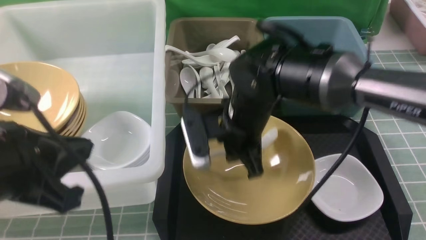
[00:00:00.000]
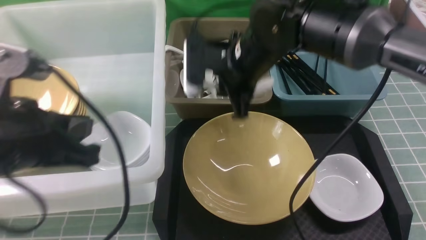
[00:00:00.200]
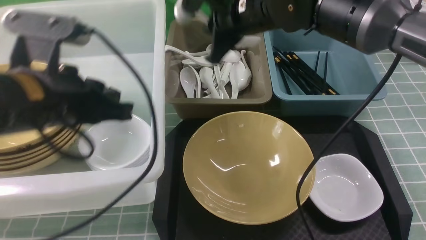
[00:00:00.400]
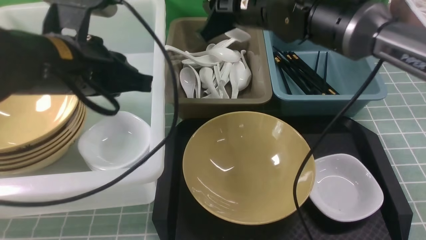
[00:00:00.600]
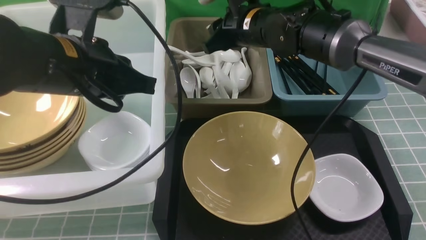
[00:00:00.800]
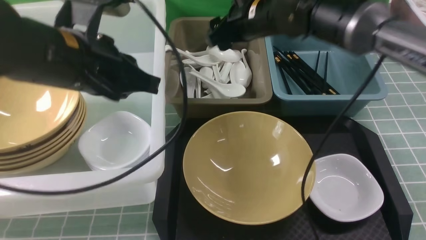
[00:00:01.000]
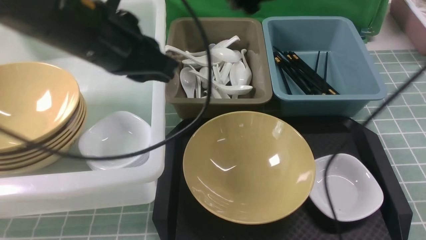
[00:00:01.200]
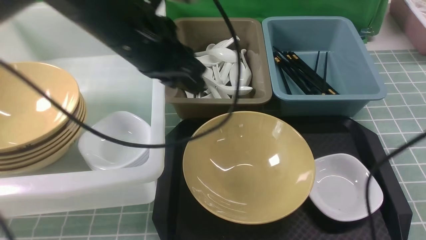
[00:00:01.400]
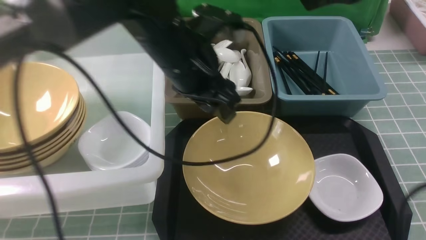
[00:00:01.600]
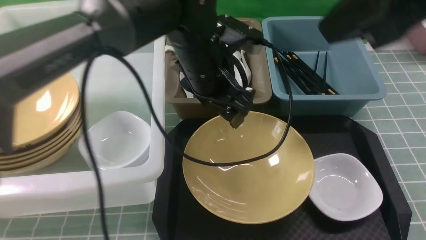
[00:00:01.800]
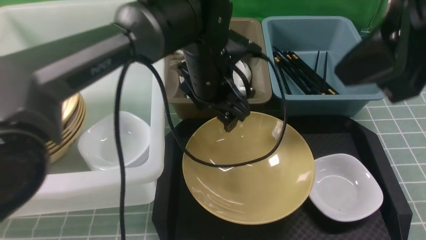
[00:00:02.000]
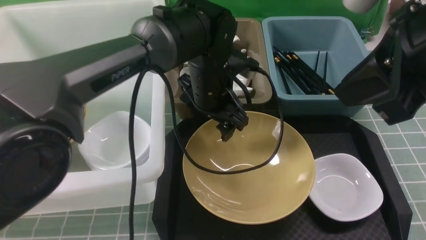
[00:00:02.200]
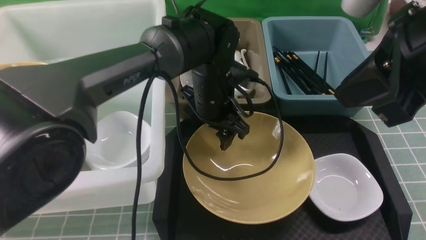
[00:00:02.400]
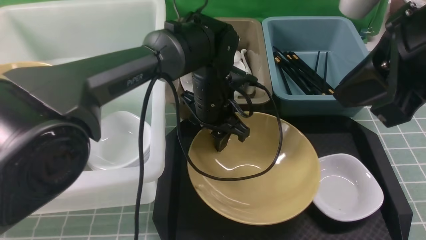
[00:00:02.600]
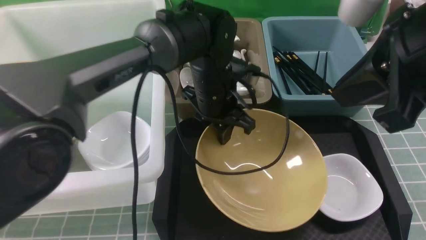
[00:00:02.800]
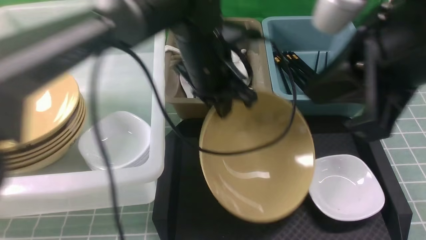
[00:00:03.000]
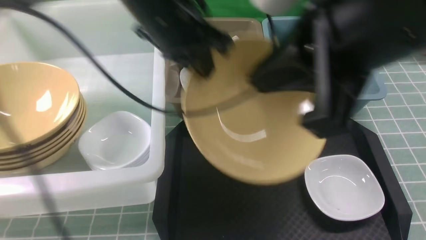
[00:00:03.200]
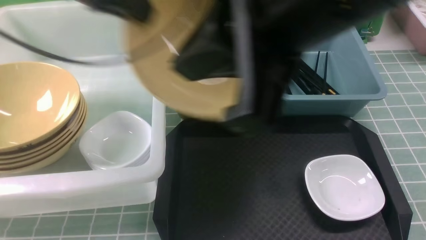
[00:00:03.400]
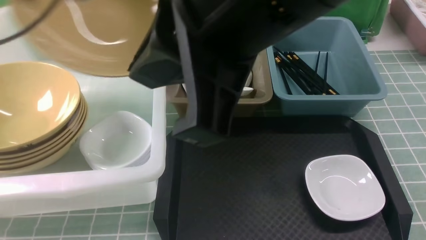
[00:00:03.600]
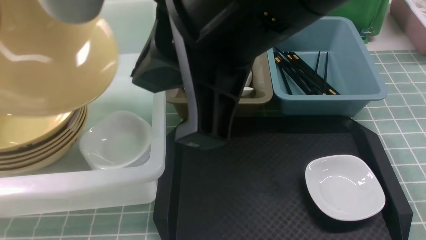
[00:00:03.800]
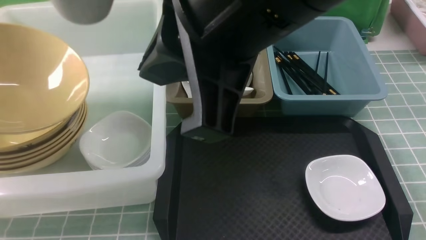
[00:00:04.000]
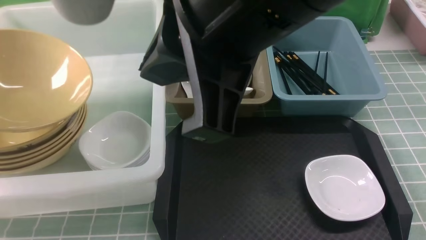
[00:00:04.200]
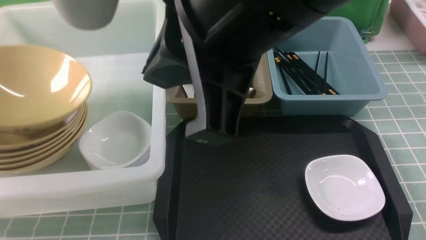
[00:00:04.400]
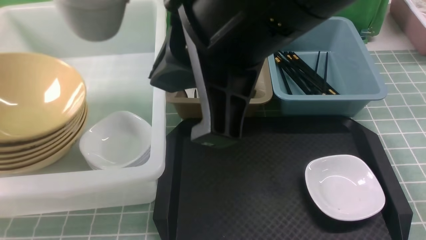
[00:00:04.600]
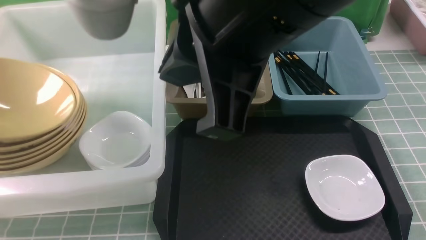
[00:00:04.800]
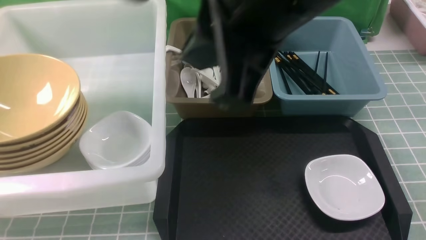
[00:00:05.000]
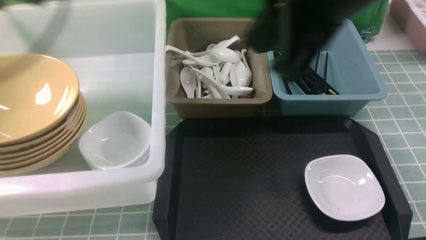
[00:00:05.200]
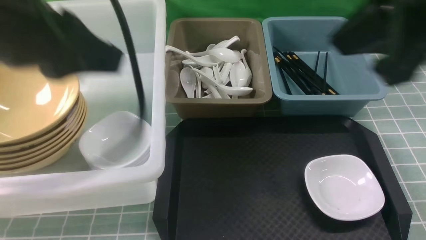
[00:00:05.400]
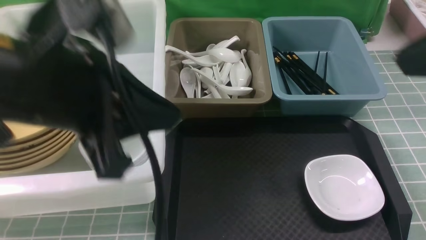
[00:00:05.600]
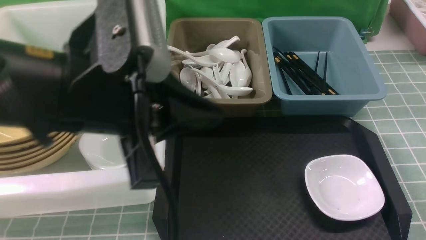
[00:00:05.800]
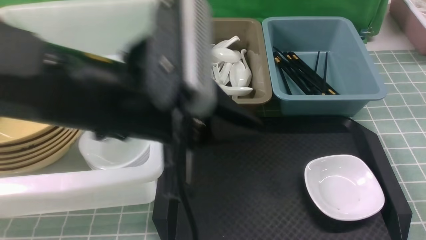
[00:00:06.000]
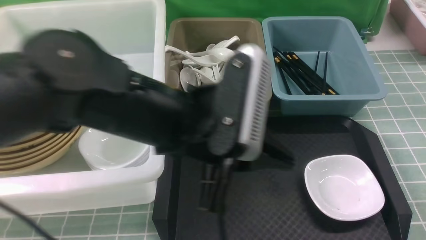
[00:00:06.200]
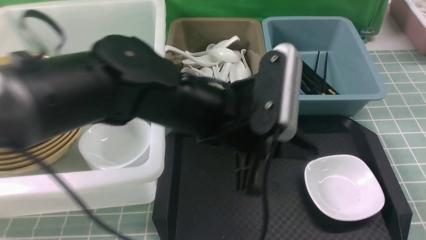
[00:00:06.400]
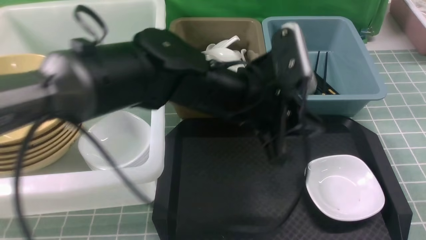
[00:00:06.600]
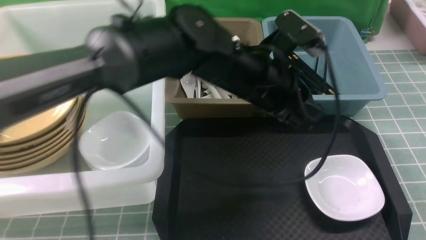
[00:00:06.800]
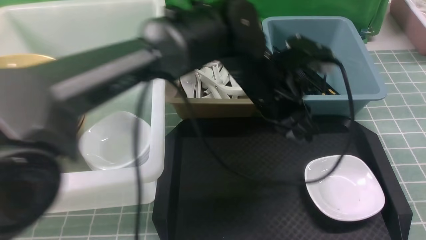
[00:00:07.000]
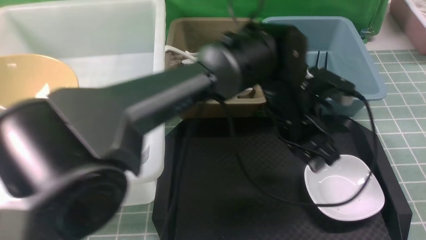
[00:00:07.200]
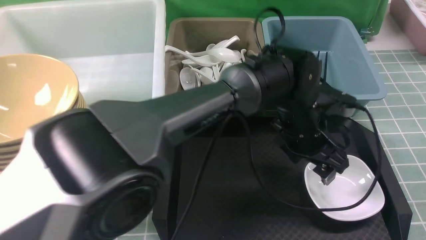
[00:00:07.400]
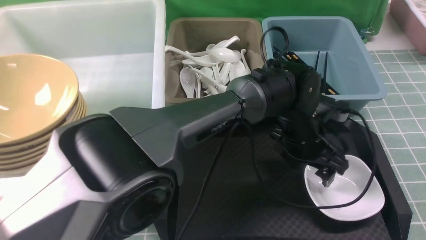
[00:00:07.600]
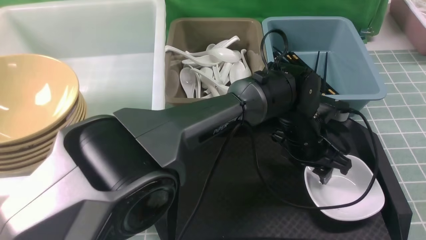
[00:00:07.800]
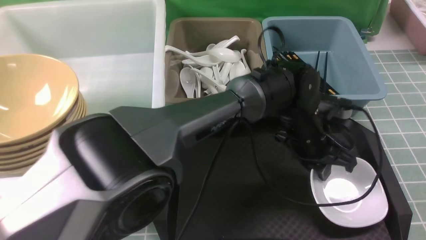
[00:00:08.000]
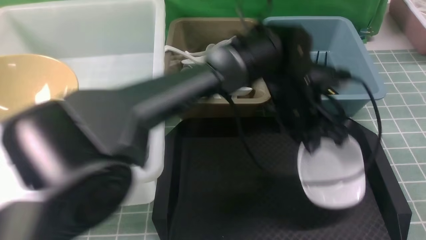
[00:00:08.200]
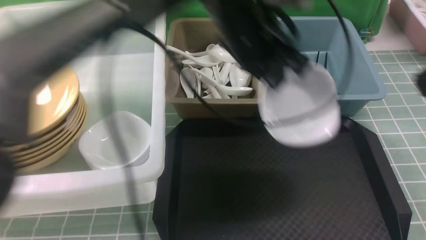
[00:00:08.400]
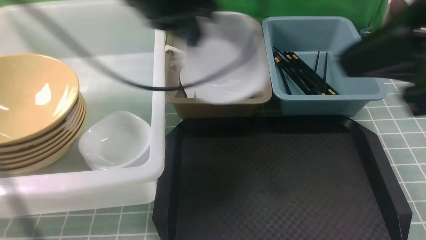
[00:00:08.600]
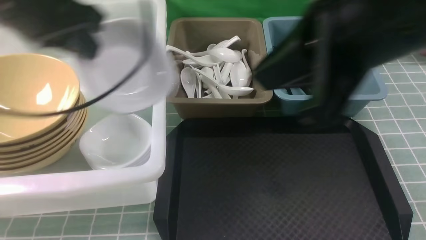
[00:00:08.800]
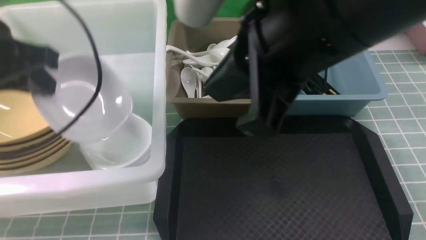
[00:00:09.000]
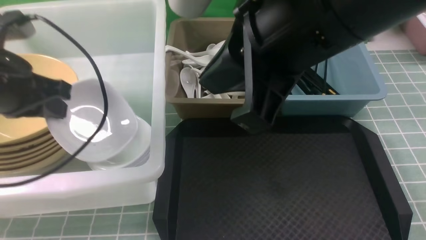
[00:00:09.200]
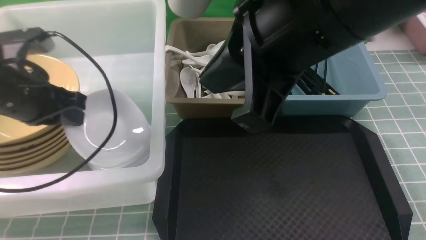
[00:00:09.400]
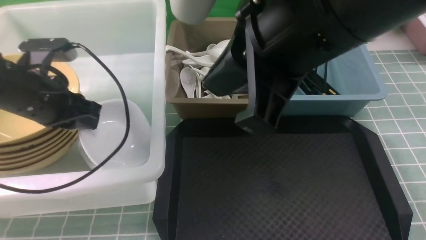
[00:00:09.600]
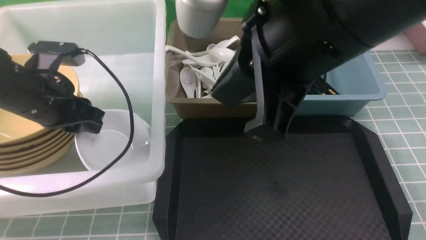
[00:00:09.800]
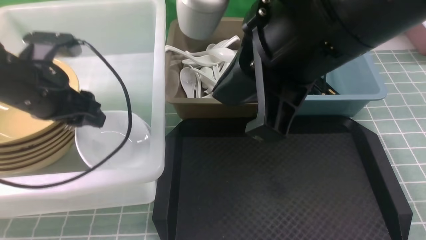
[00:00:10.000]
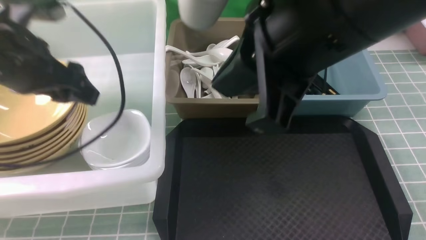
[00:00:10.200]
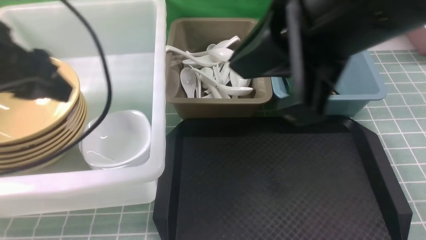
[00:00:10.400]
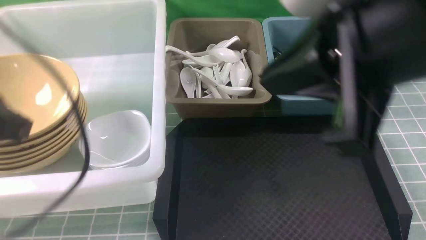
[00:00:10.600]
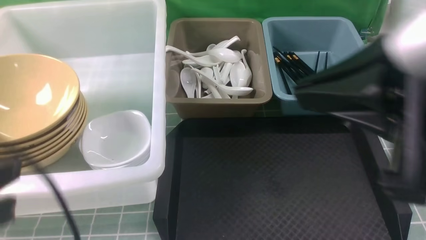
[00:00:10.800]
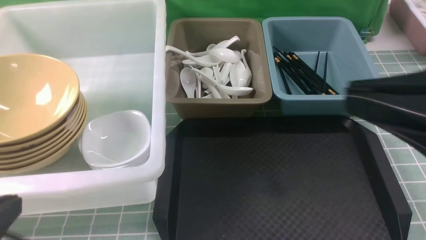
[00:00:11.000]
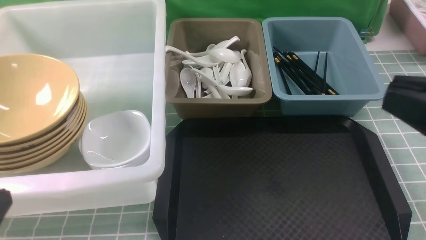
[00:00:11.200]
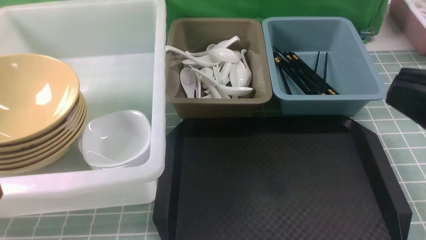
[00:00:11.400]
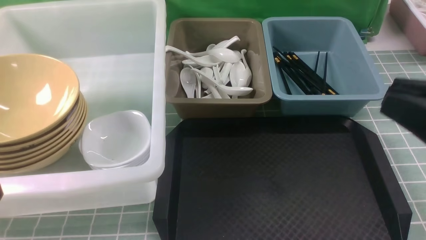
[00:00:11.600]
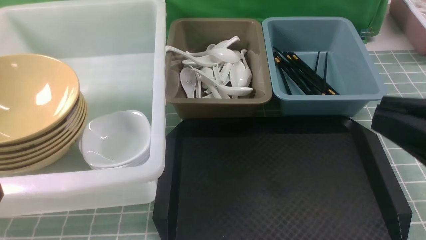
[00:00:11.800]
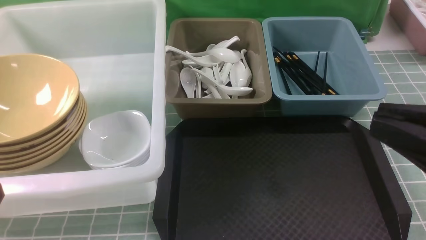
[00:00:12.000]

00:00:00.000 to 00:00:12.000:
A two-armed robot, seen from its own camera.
Task of the whole recording: on blue table put chopsticks spoon bowls plates into blue grey white boxes.
Step, 00:00:00.200 to 00:00:00.800: use the right arm to put the soup spoon into the small storage box in the middle.
Step, 00:00:01.000 to 00:00:02.800: use the left arm to grab the yellow noodle bowl on the left.
Step, 00:00:03.000 to 00:00:04.600: use the left arm to put the noodle bowl into the large storage box on the left.
Step, 00:00:04.800 to 00:00:08.200: use the left arm to grab the plate.
Step, 00:00:08.400 to 00:00:10.200: use the left arm to put the plate into the large storage box on the left.
00:00:00.000 to 00:00:01.600: The left gripper heads forward and to the right, covering approximately 25 cm, and opens. Meanwhile the right gripper goes approximately 25 cm upward and to the right, and opens.
00:00:01.600 to 00:00:03.000: The right gripper moves backward, approximately 5 cm, and closes, while the left gripper goes downward and returns, about 10 cm each way, and closes its fingers.
00:00:03.000 to 00:00:04.400: The left gripper goes approximately 40 cm to the left; the right gripper is displaced to the left by approximately 10 cm.
00:00:04.400 to 00:00:06.000: The right gripper moves to the right, about 20 cm; the left gripper travels to the right by some 35 cm, and opens, then closes again.
00:00:06.000 to 00:00:07.600: The left gripper goes roughly 30 cm to the right, downward and forward, and opens its fingers.
00:00:07.600 to 00:00:09.000: The right gripper travels to the left and forward by some 20 cm; the left gripper goes approximately 40 cm to the left and upward, and closes up.
00:00:09.000 to 00:00:10.400: The left gripper travels backward by approximately 5 cm, moves about 10 cm downward and comes back, and opens its fingers.
00:00:10.400 to 00:00:12.000: The right gripper goes approximately 15 cm to the right, backward and downward. The left gripper heads backward and downward, covering about 20 cm, and closes up.

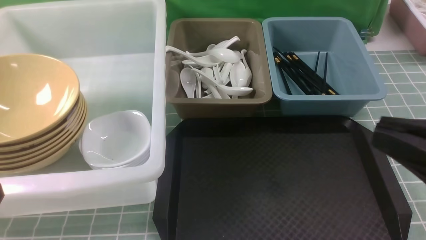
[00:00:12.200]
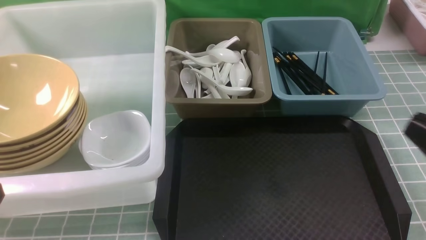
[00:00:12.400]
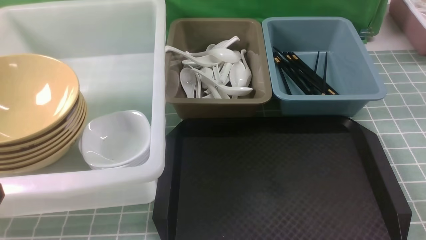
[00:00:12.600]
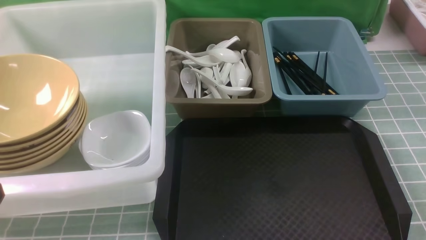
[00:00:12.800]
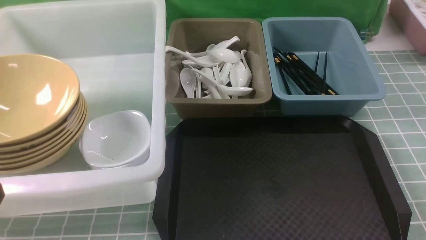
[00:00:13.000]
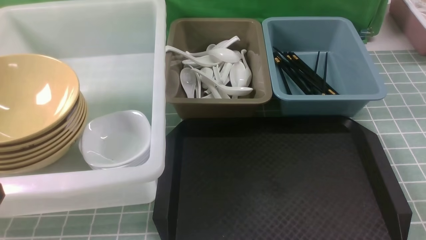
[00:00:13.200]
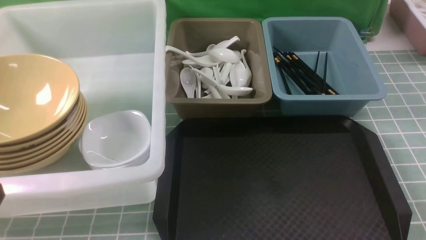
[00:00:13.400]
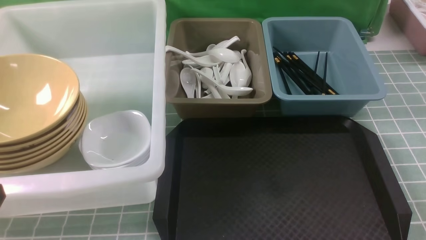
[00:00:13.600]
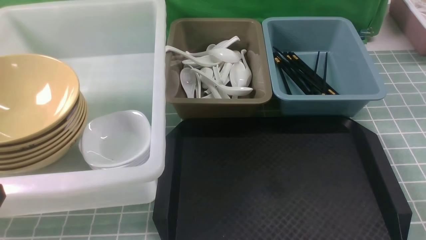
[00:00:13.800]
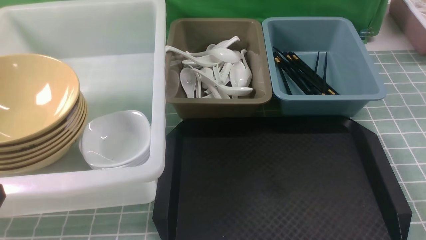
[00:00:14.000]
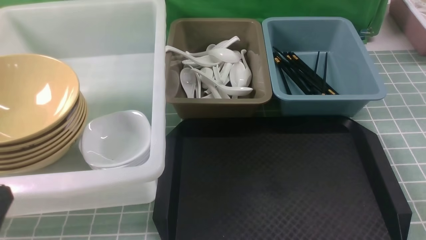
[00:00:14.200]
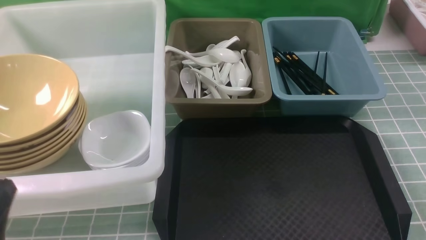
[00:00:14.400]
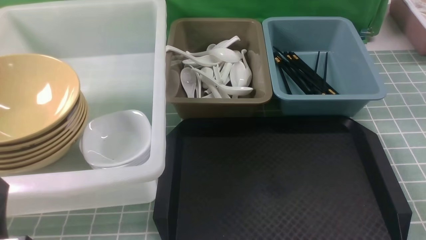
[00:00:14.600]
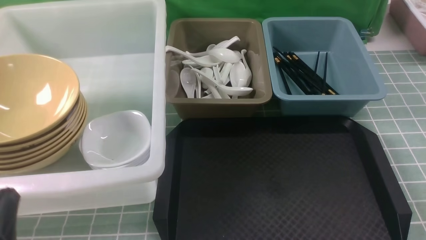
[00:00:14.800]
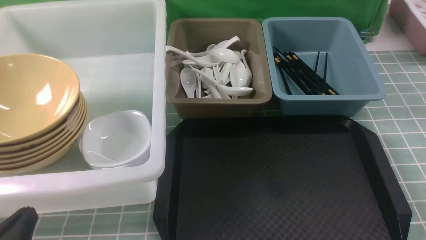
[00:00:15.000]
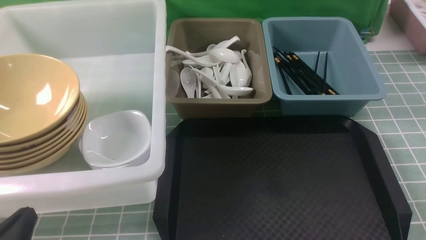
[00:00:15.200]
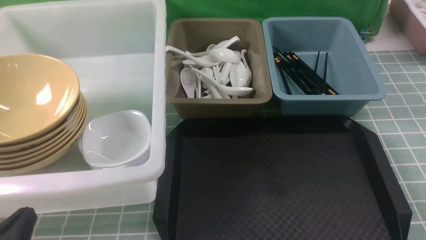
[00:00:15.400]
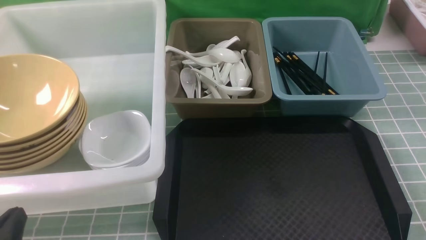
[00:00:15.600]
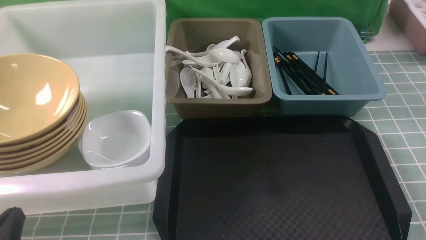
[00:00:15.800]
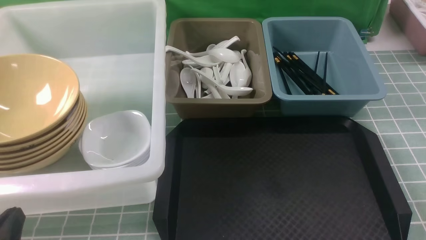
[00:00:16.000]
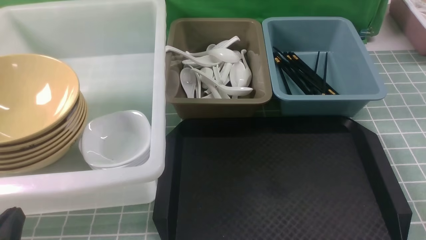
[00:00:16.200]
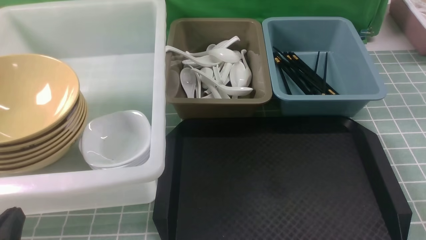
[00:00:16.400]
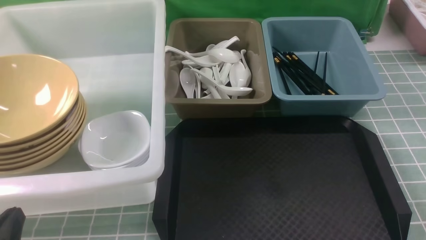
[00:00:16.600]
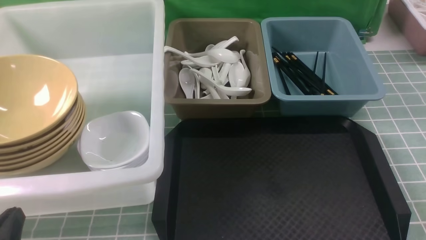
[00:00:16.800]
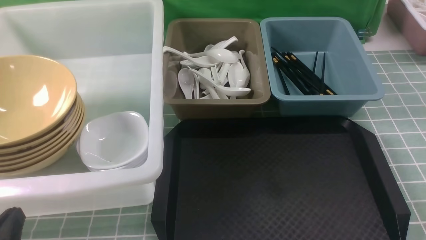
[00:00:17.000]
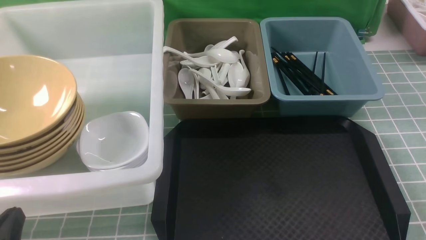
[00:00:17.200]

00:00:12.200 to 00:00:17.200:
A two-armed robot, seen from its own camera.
Task of the whole recording: on blue table put chopsticks spoon bowls plates into blue grey white boxes.
00:00:12.200 to 00:00:13.800: The right gripper is displaced downward and to the right by roughly 20 cm.
00:00:13.800 to 00:00:15.600: The left gripper travels downward by about 10 cm.
00:00:15.600 to 00:00:17.200: The two grippers keep their place.
